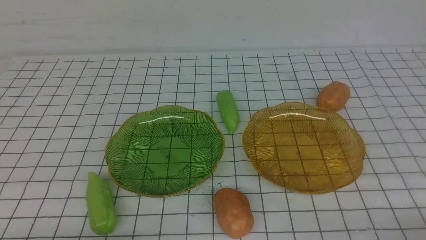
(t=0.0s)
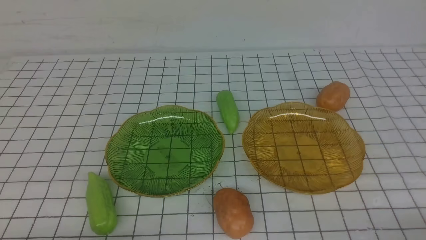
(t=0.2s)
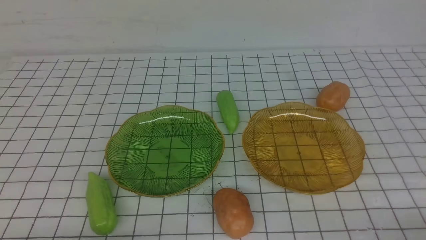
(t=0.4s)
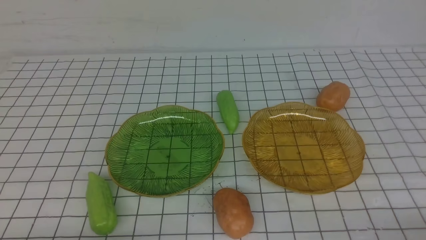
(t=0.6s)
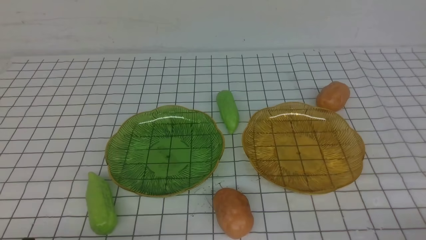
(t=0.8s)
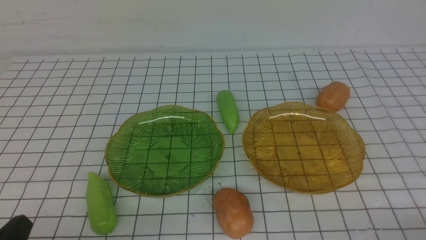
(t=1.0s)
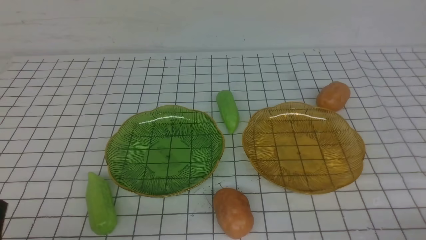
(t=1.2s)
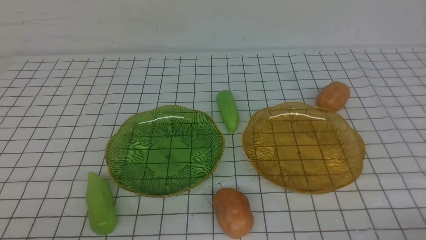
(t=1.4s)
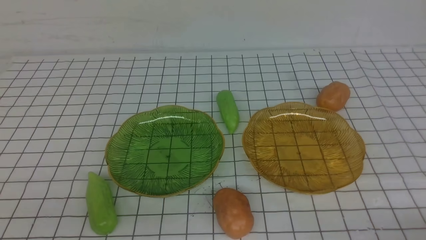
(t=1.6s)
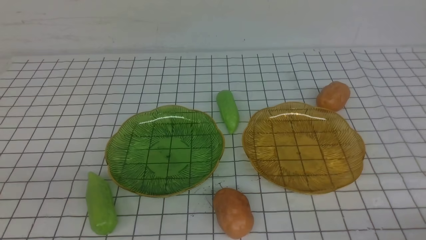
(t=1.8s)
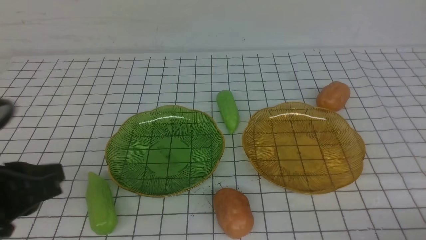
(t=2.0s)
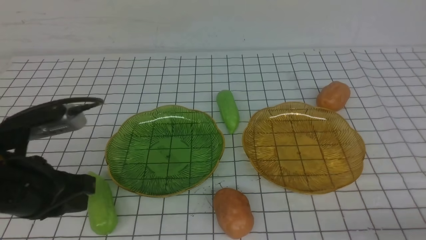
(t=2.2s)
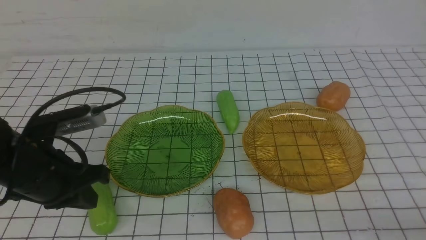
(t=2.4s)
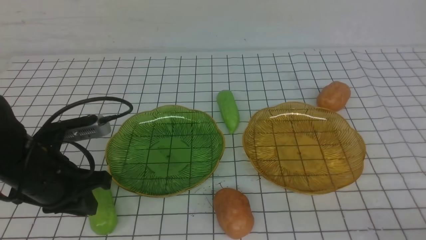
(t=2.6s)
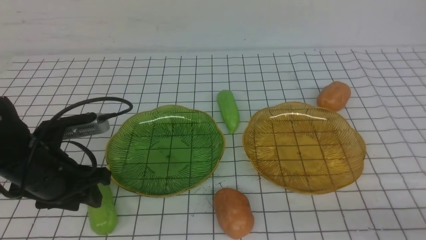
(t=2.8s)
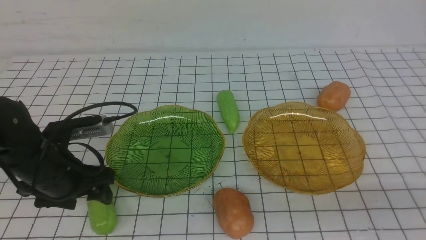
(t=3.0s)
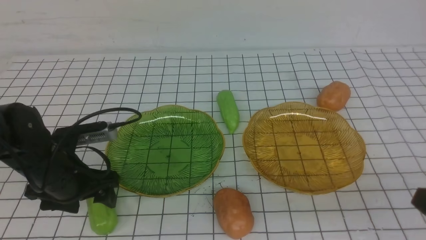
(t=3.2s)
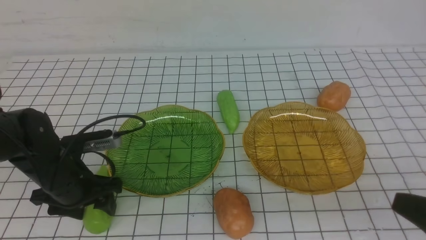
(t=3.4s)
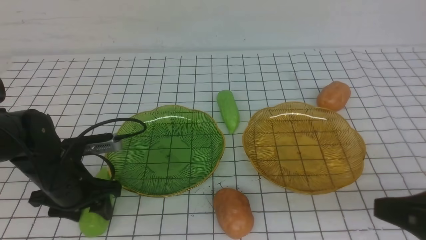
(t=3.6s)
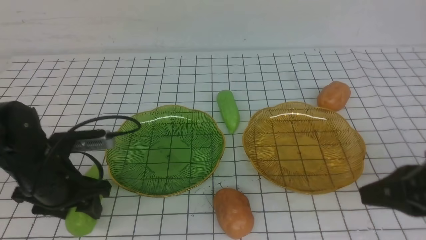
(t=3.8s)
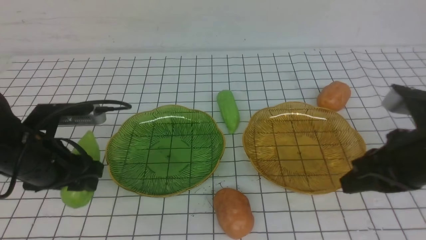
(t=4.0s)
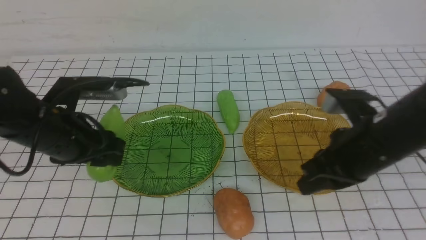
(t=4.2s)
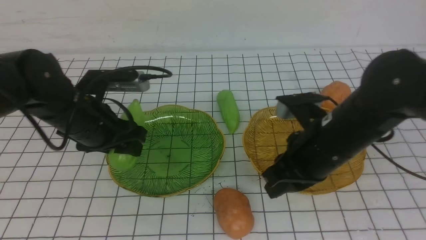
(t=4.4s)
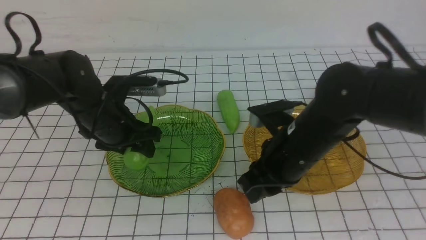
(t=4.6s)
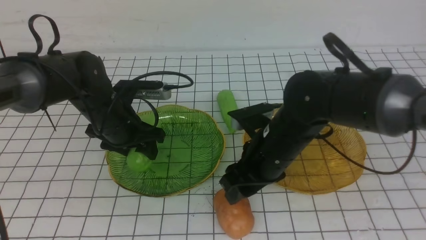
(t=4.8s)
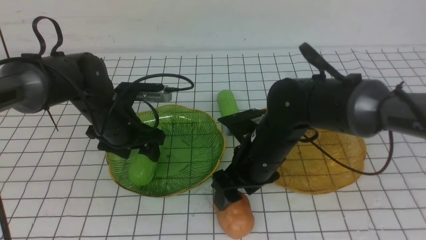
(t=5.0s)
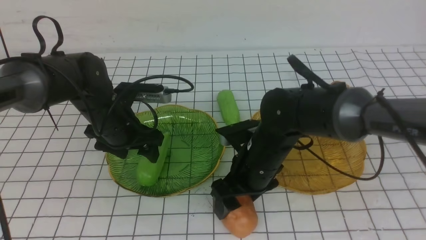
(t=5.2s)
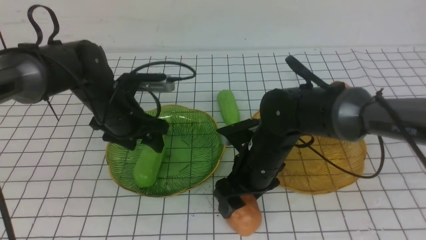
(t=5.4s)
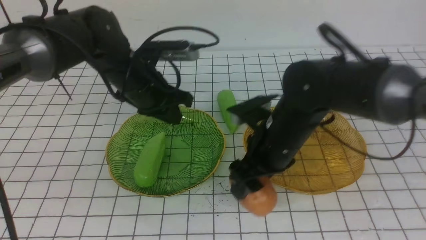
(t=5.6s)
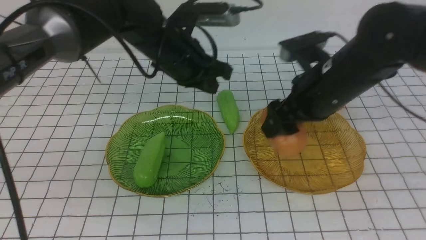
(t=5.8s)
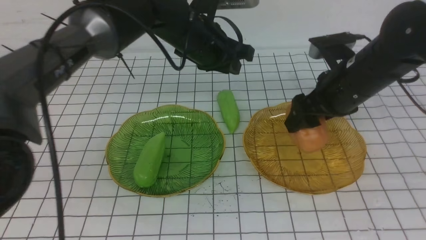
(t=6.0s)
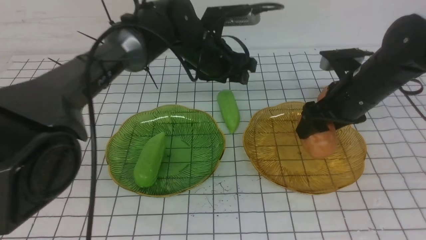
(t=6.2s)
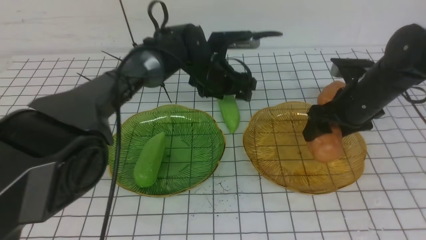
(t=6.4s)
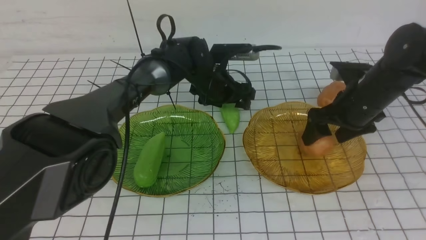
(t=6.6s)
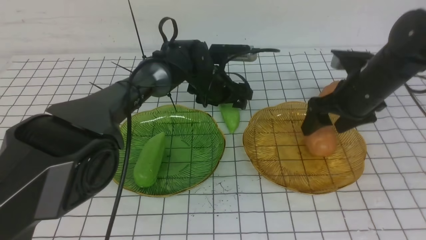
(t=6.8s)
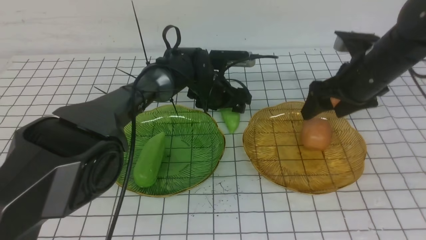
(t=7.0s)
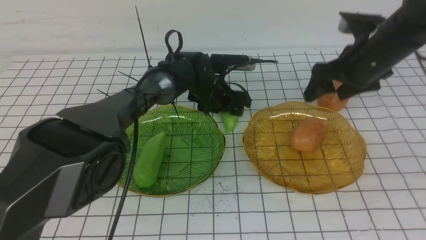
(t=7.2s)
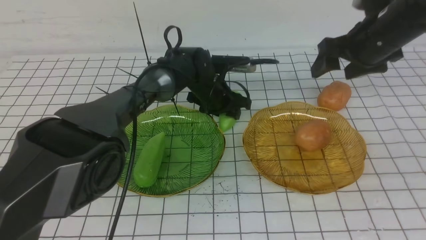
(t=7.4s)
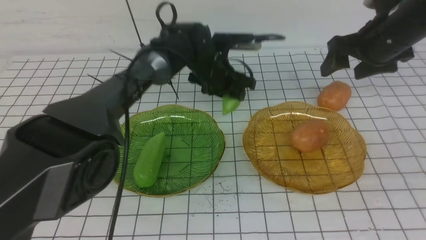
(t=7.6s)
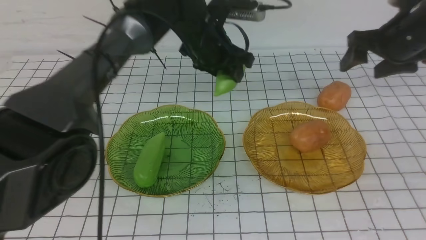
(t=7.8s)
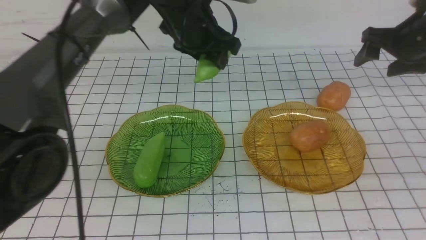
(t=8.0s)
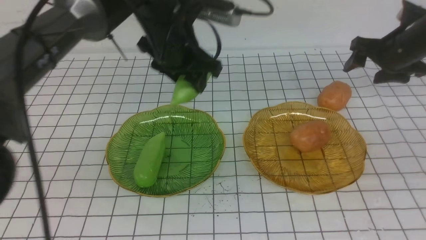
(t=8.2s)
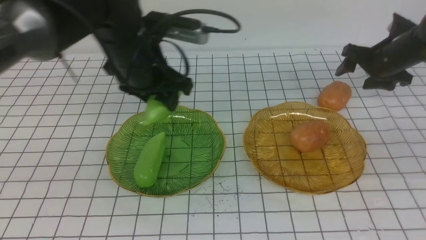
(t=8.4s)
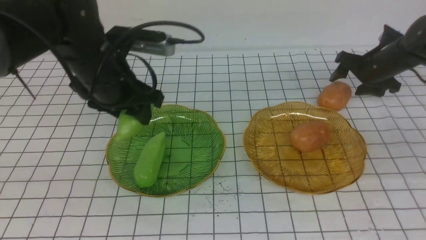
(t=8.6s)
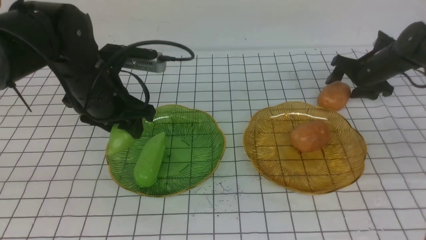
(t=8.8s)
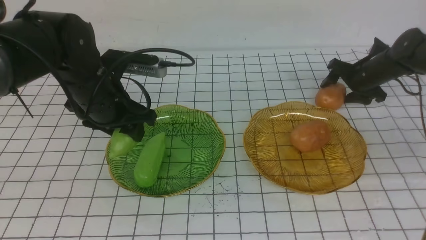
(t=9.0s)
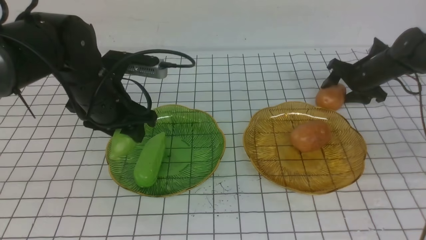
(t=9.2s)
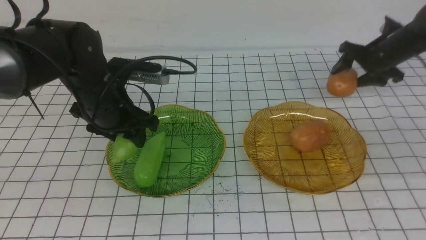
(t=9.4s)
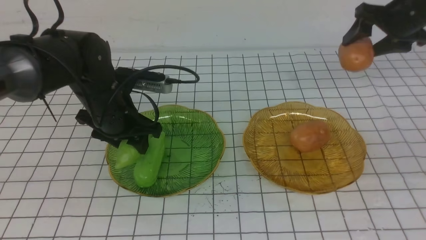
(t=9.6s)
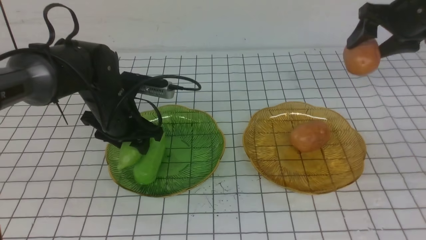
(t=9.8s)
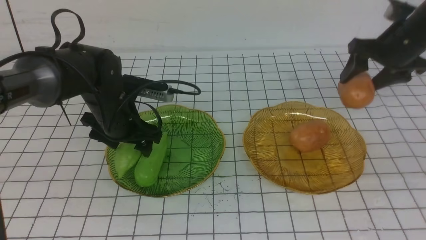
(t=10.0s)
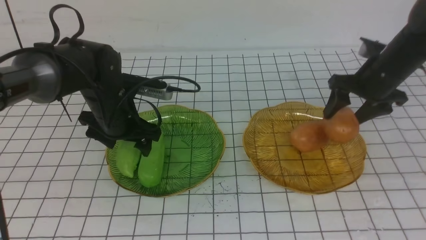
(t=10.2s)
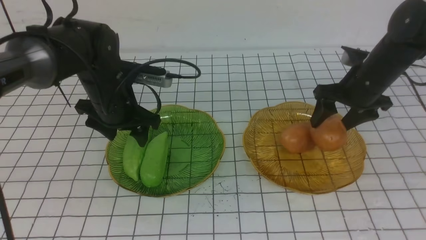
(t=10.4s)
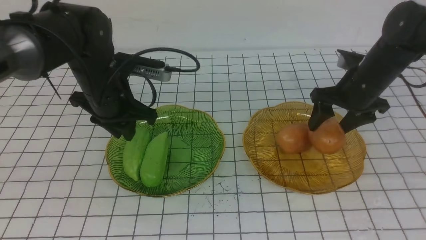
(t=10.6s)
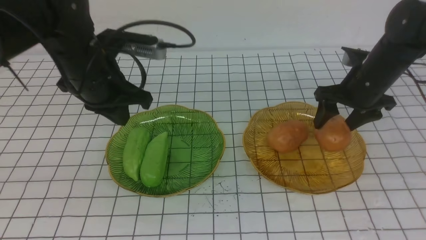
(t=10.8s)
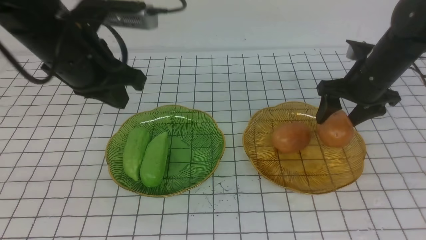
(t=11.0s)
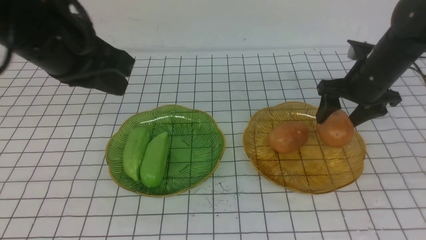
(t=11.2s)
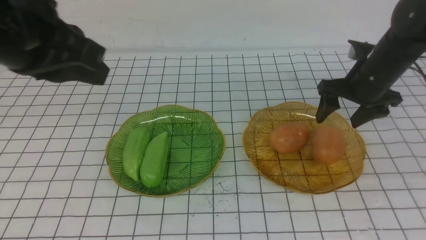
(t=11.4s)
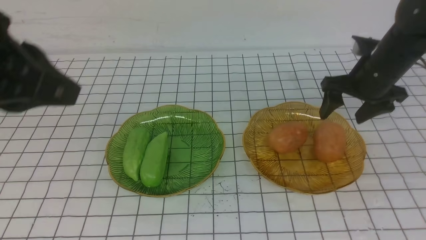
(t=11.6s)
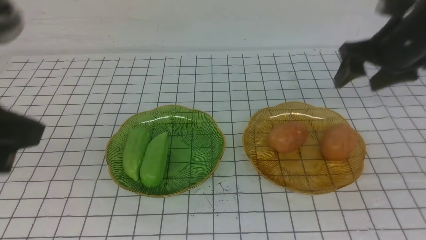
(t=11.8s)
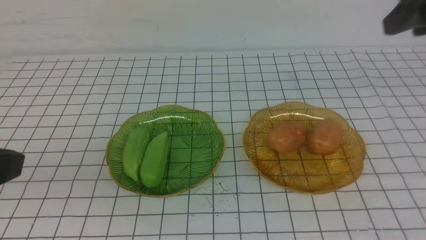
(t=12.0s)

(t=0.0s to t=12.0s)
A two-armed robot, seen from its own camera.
Step, t=0.0s - t=5.0s: use the left arm to grab a chayote and put it into the left plate.
Step, t=5.2s - t=6.8s: Grab a potato with your right arm and put it on the right plate.
Step, t=7.0s - t=10.2s: use the left arm to grab a chayote and put it into the left plate.
t=1.6s - t=3.0s: The left gripper moves forward, approximately 20 cm, and opens up.
t=3.0s - t=4.4s: The left gripper moves forward, approximately 5 cm. The right gripper goes some 25 cm forward and to the left.
t=4.4s - t=6.0s: The left gripper goes about 20 cm to the right, forward and upward, and closes up; the right gripper goes approximately 10 cm forward, moves some 10 cm to the left and comes back, and opens its fingers.
t=6.0s - t=7.6s: The right gripper travels to the right and forward by approximately 10 cm; the left gripper moves downward and forward, about 10 cm, and opens its fingers.
t=7.6s - t=9.0s: The left gripper is displaced to the left, backward and upward by approximately 20 cm. The right gripper is displaced downward, forward and to the right by approximately 20 cm.
t=9.0s - t=10.4s: The right gripper is displaced backward, upward and to the left by approximately 15 cm, while the left gripper shifts by approximately 5 cm.
t=10.4s - t=12.0s: The left gripper moves backward and upward, roughly 30 cm, and closes its fingers, while the right gripper heads upward and backward, covering roughly 20 cm.

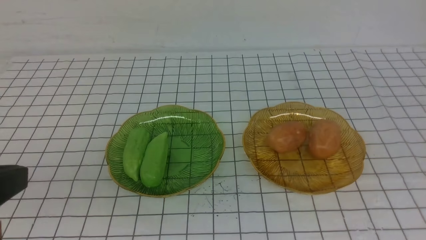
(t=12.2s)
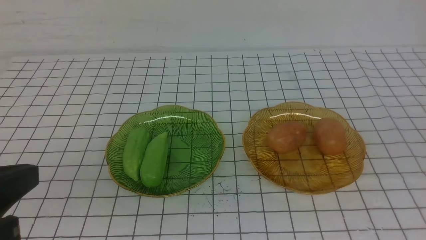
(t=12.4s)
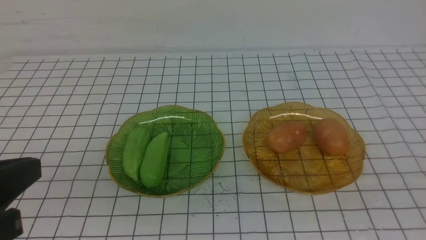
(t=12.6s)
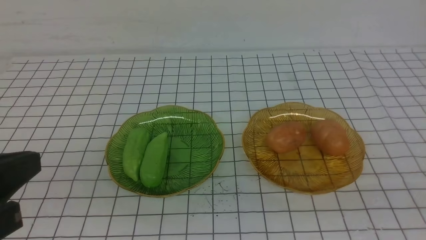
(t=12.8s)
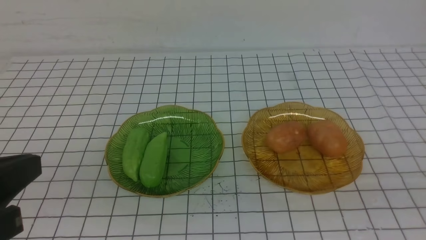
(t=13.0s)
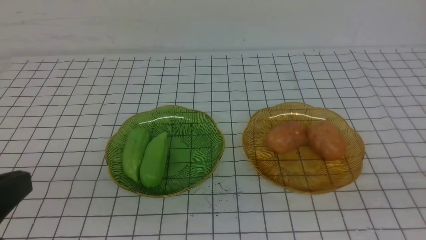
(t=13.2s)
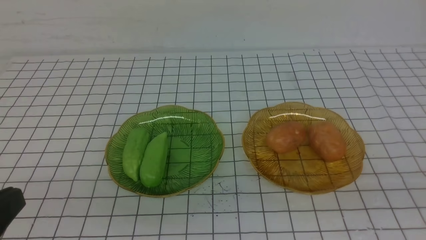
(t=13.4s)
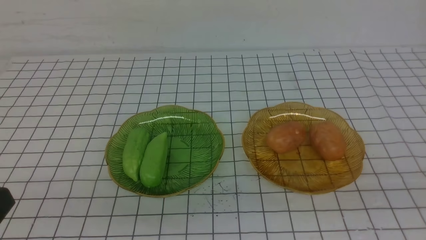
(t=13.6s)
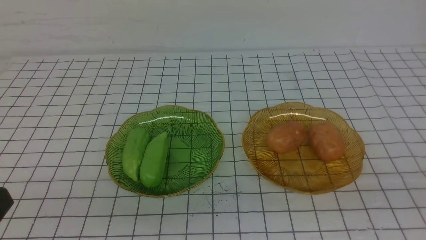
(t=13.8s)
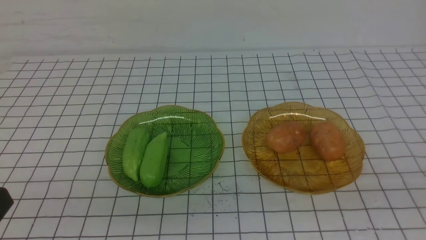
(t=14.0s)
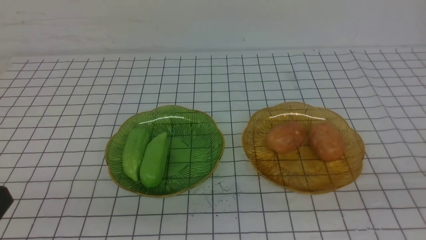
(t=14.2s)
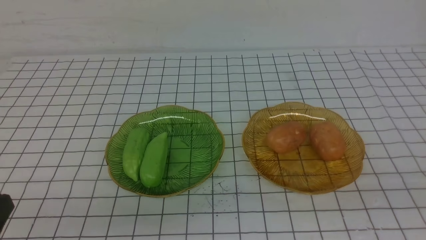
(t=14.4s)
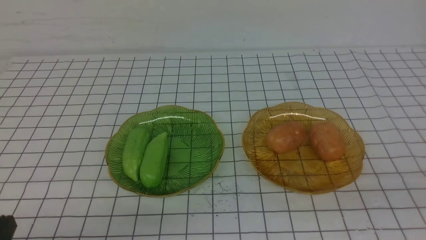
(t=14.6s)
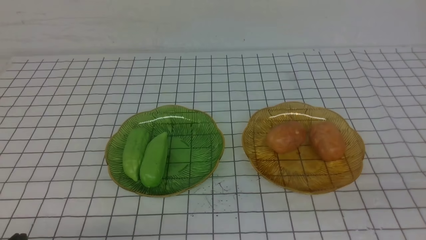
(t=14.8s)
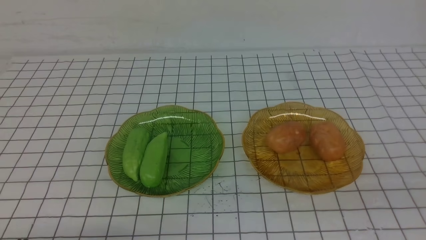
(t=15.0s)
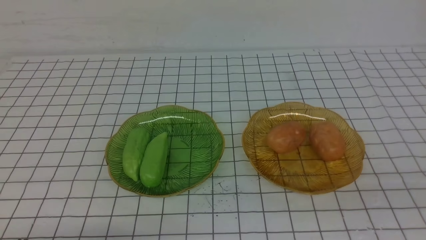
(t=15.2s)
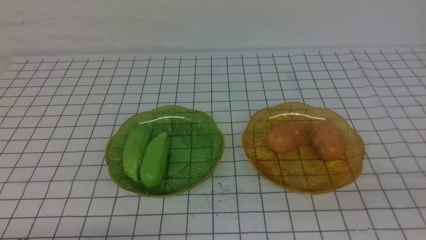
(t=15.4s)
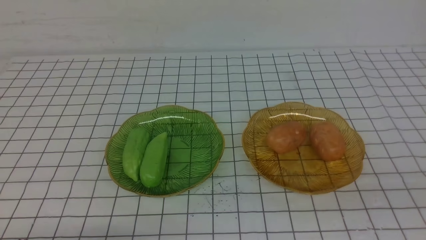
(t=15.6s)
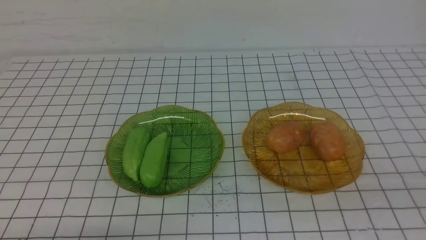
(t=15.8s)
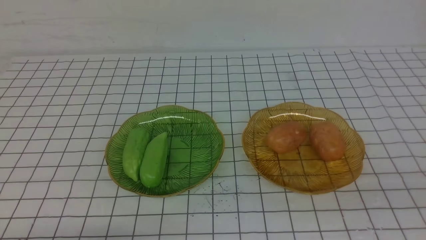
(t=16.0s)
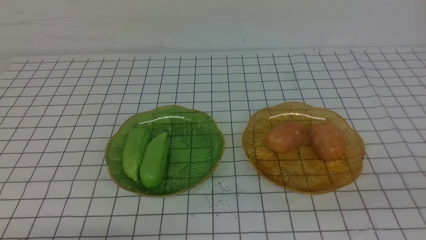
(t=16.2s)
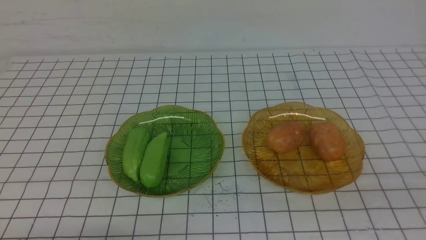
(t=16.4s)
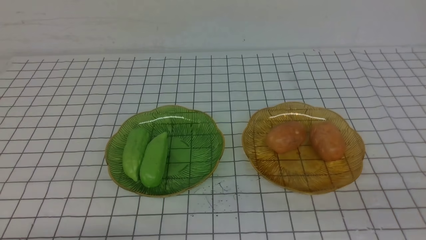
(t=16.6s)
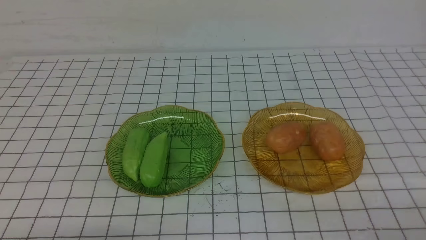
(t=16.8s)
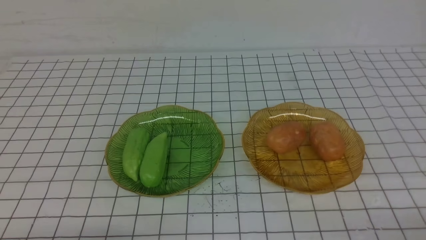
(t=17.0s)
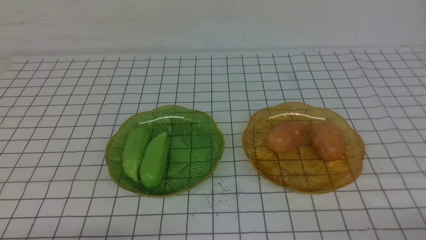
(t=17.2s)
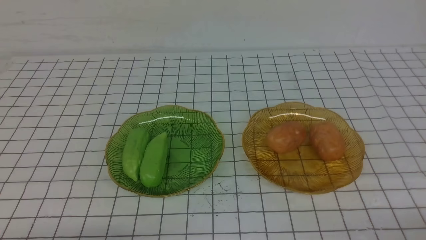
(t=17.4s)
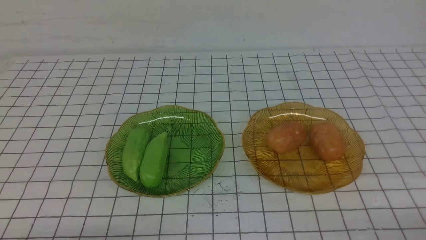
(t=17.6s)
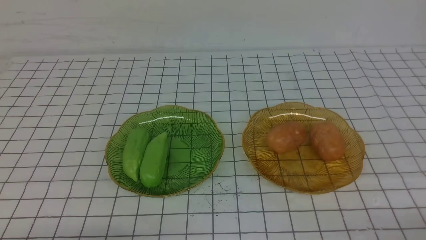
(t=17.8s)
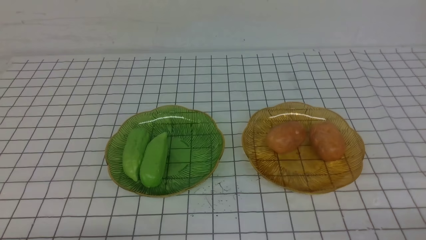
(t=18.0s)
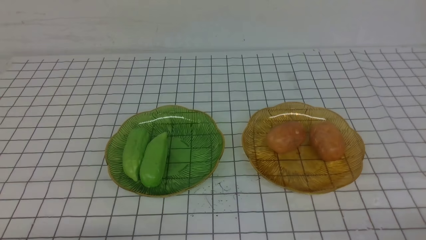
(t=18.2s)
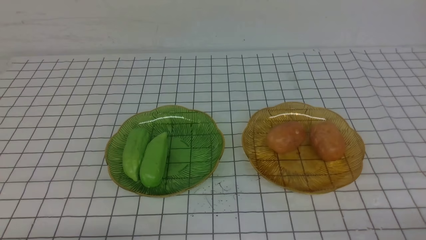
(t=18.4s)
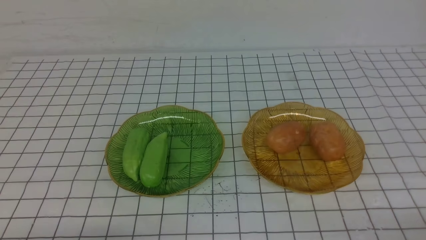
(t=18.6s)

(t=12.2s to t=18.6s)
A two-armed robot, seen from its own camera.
t=12.2s - t=13.8s: The right gripper moves backward and downward, some 20 cm, while the left gripper travels downward by some 10 cm.
